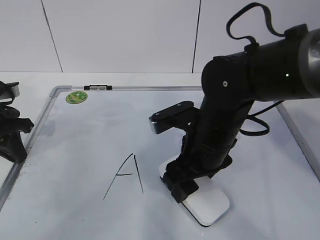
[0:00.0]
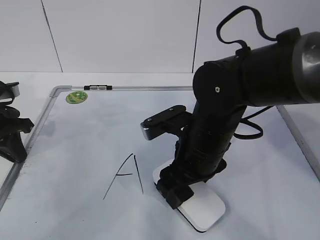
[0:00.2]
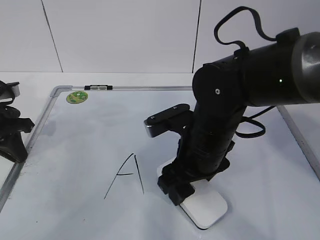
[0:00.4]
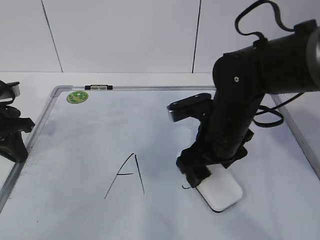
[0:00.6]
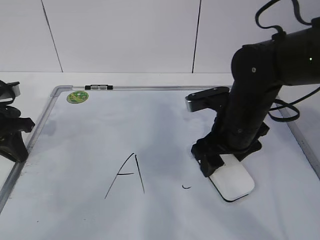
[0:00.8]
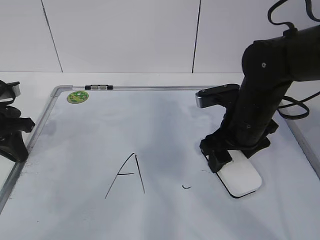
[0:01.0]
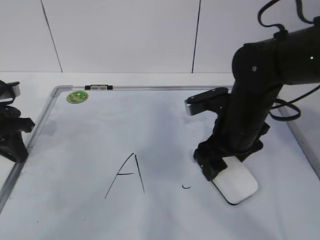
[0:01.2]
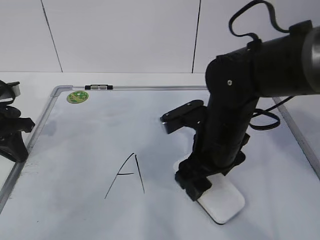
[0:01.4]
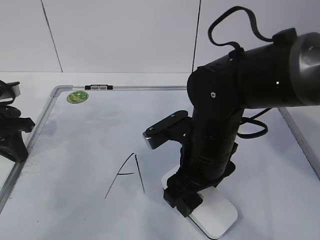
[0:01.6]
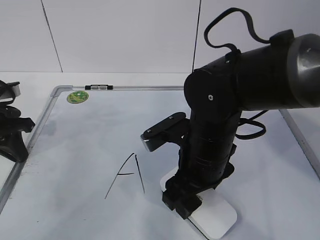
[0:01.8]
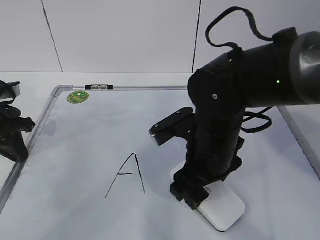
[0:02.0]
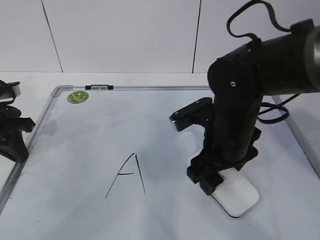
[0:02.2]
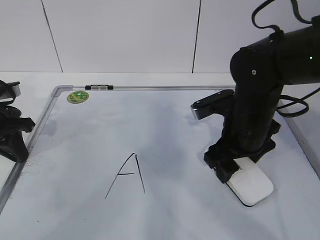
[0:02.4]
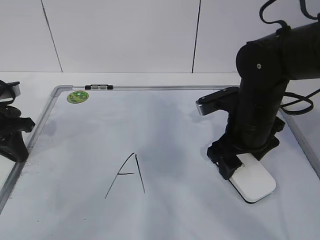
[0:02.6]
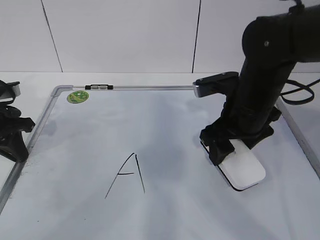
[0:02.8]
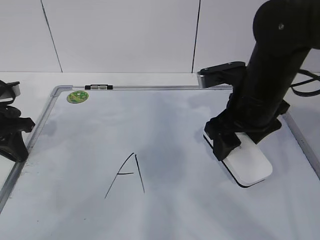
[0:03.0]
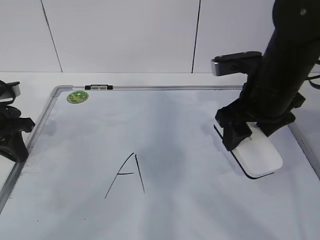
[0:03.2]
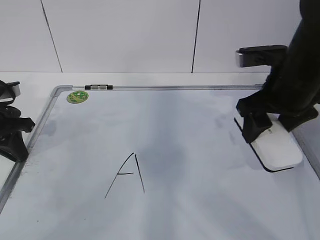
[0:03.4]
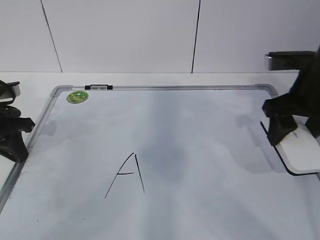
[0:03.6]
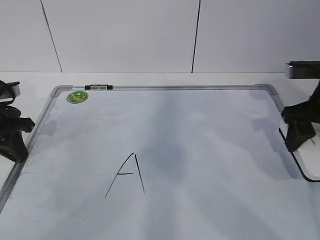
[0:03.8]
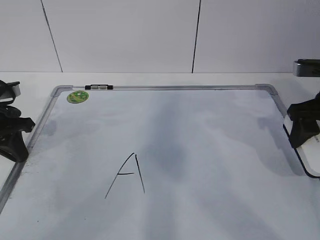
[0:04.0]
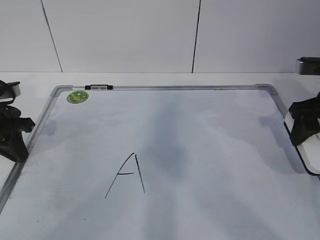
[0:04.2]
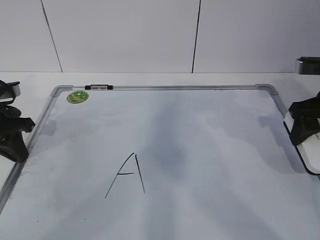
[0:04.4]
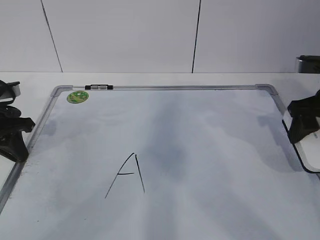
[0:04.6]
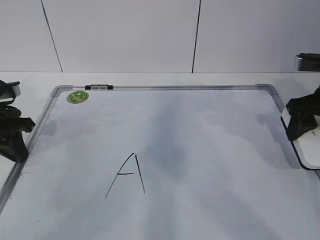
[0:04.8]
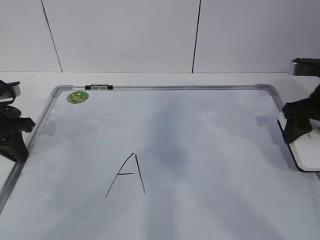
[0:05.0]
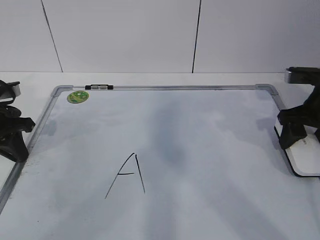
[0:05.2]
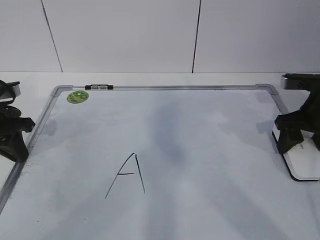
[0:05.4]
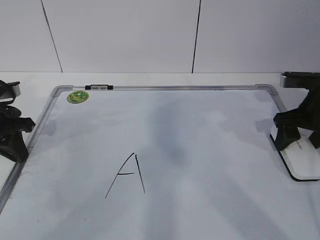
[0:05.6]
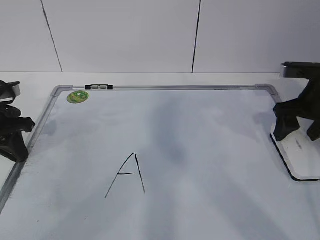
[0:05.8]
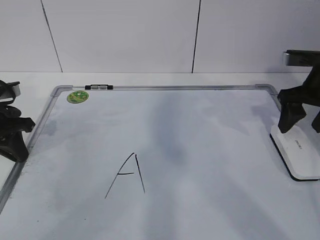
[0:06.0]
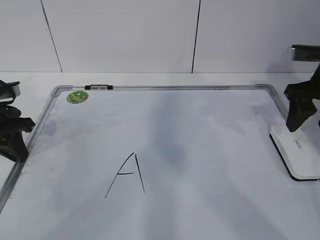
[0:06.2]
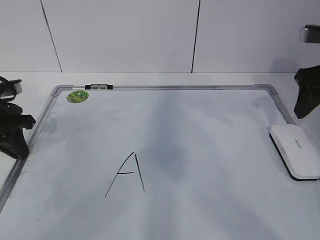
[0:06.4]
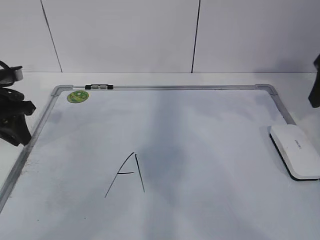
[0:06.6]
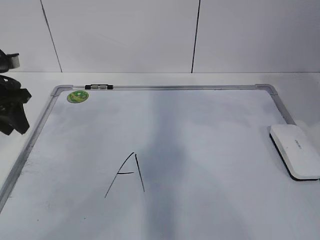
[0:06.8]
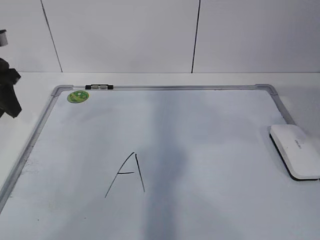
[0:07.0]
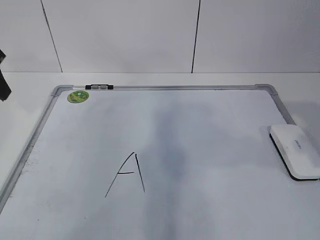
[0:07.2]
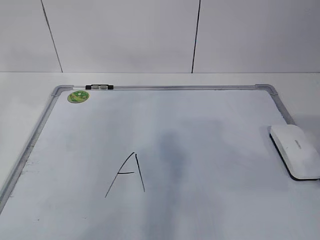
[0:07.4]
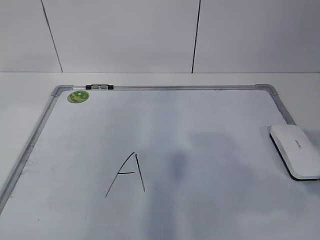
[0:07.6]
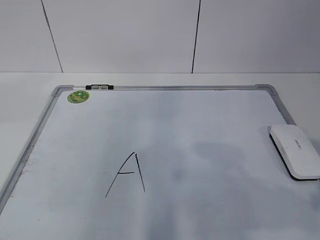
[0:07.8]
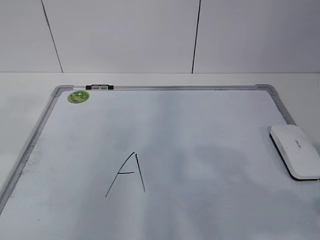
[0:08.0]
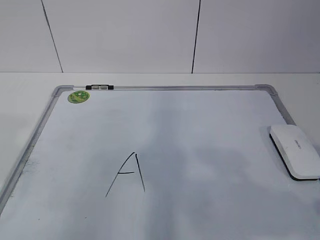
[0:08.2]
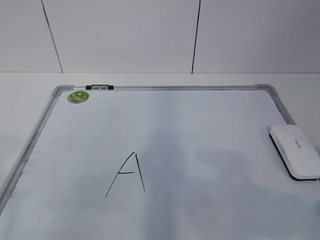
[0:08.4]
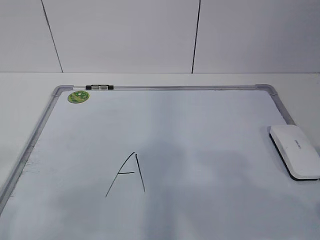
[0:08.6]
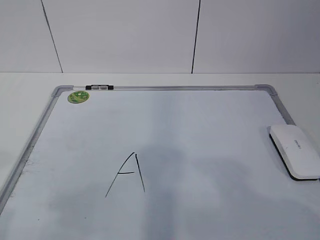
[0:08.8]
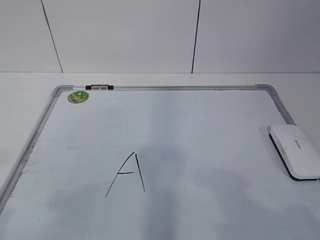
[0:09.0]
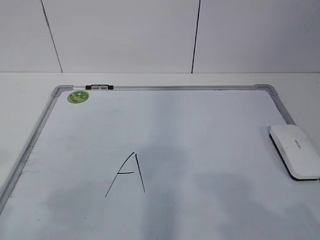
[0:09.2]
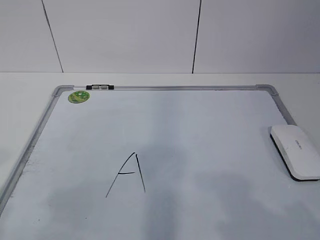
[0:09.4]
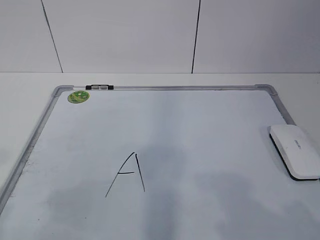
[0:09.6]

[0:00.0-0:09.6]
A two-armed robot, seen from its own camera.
Task of the whole recording: pick up the eraser on the blackboard and erase the letter "a".
Step, 0.0 to 1.6 s: Put down the eraser with your right hand.
0.0 to 1.6 s: The right gripper reaches about 5 cm to the right, then returns.
1.6 to 3.2 s: The right gripper shifts roughly 10 cm to the right and upward.
3.2 to 4.8 s: The right gripper shifts approximately 15 cm to the right.
4.8 to 6.4 s: The grippers stay close to where they were, moving slightly.
6.4 to 8.0 s: The left gripper moves backward and upward, some 30 cm, and opens, while the right gripper heads backward, covering some 25 cm.

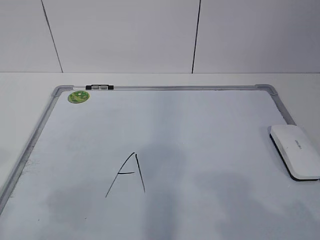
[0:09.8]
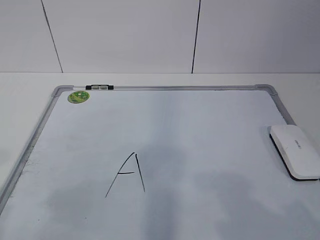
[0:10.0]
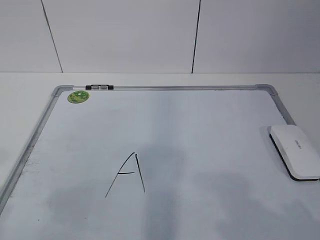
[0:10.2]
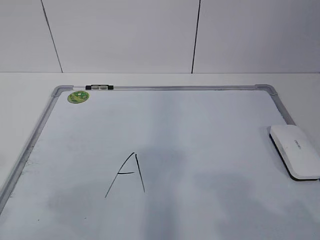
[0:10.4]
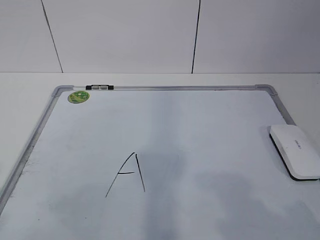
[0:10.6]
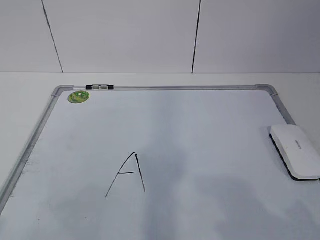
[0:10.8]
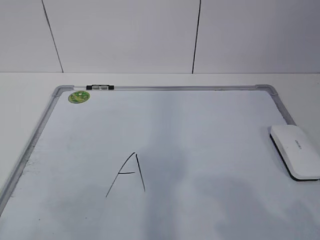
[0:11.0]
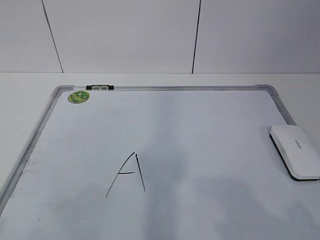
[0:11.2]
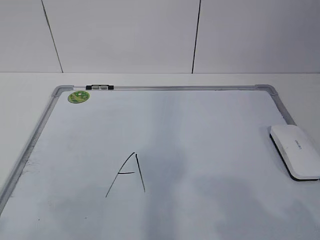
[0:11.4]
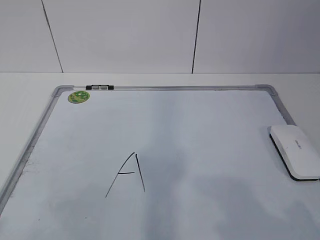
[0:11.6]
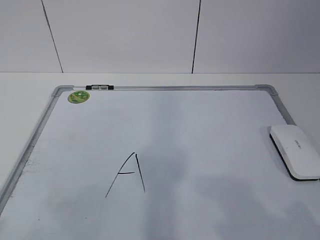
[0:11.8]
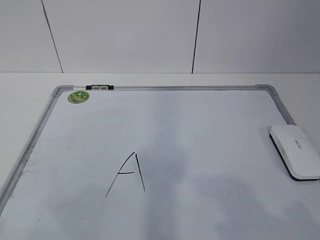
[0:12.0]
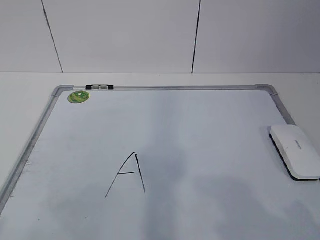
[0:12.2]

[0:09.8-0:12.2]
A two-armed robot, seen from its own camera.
Task of the whole recording: pick up the eraser on the blackboard and erase the letter "a".
11.0 to 12.2 s: Neither gripper changes place.

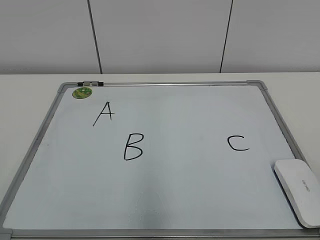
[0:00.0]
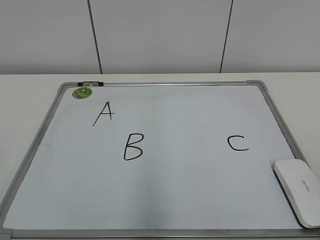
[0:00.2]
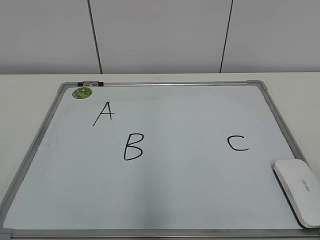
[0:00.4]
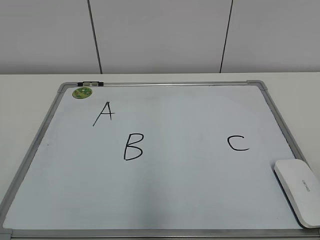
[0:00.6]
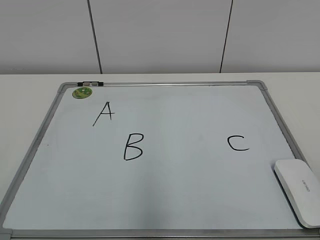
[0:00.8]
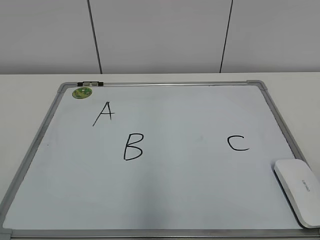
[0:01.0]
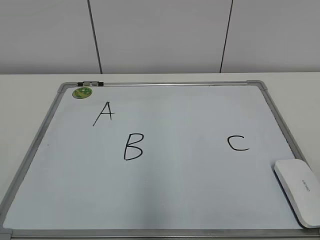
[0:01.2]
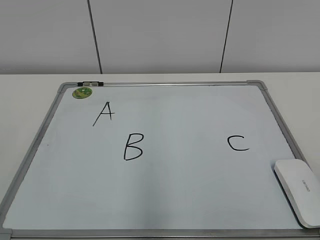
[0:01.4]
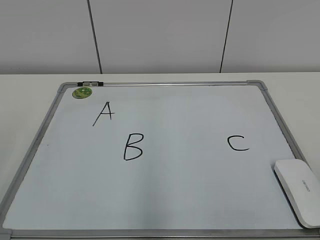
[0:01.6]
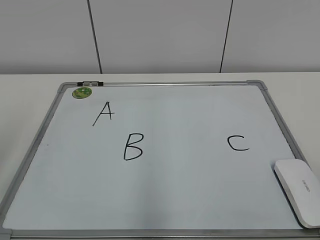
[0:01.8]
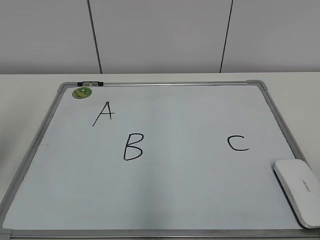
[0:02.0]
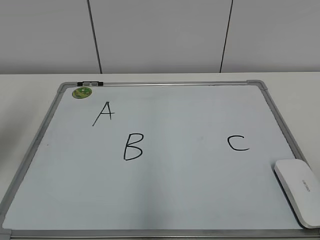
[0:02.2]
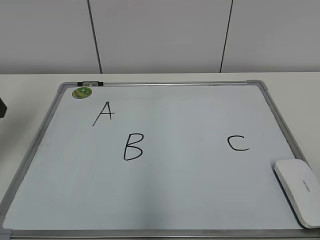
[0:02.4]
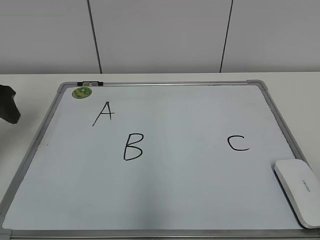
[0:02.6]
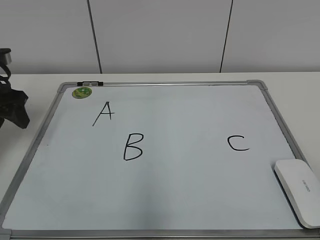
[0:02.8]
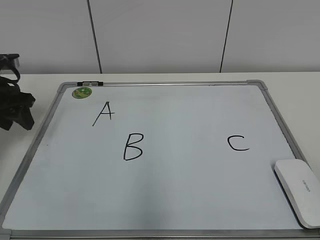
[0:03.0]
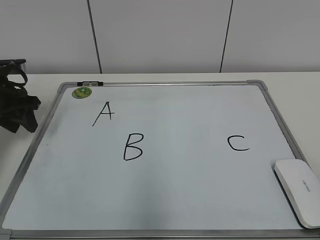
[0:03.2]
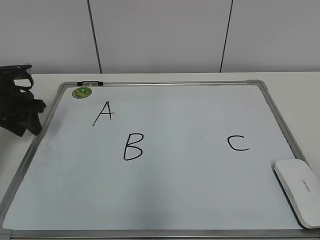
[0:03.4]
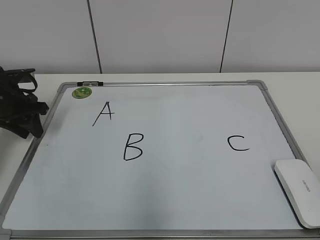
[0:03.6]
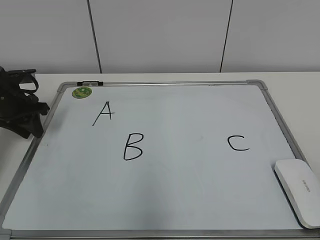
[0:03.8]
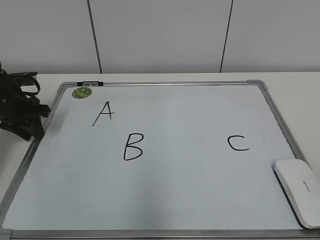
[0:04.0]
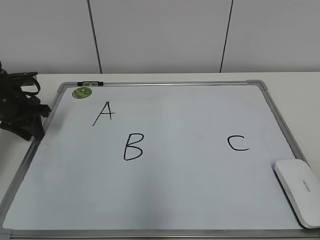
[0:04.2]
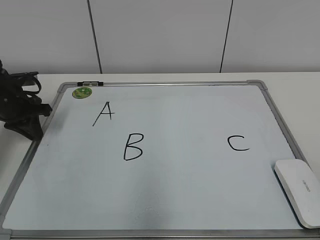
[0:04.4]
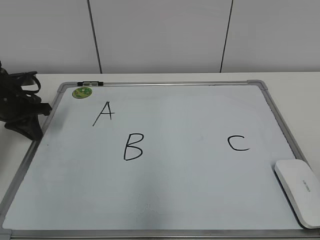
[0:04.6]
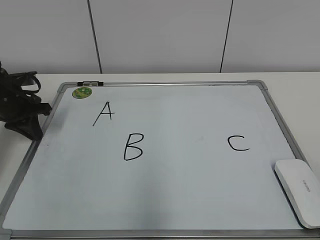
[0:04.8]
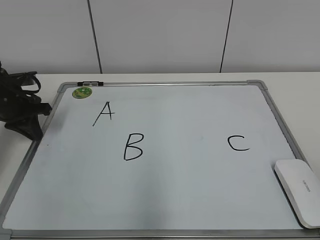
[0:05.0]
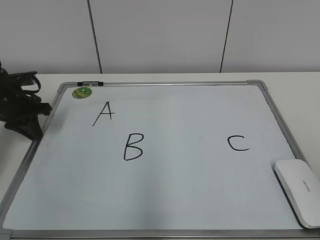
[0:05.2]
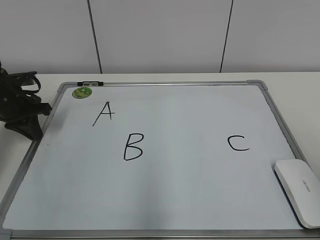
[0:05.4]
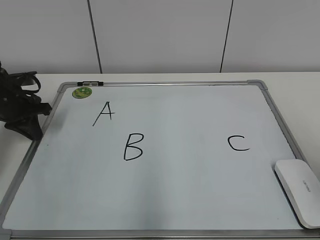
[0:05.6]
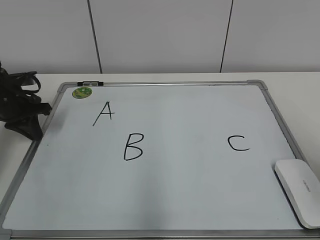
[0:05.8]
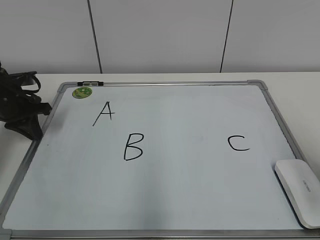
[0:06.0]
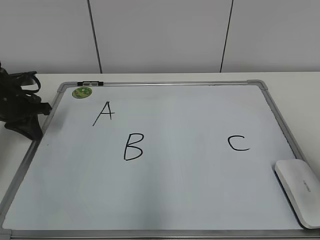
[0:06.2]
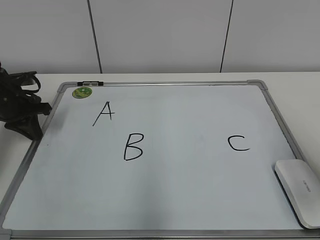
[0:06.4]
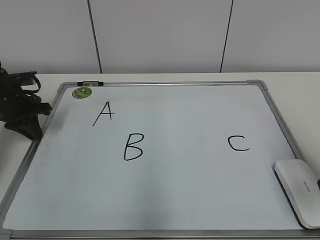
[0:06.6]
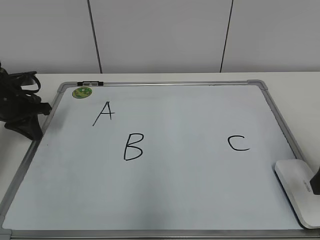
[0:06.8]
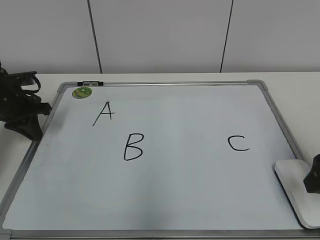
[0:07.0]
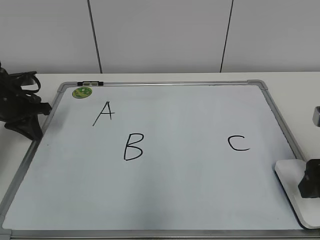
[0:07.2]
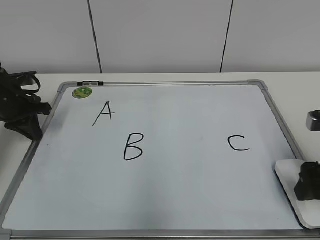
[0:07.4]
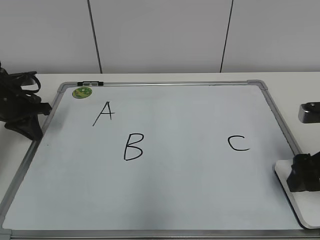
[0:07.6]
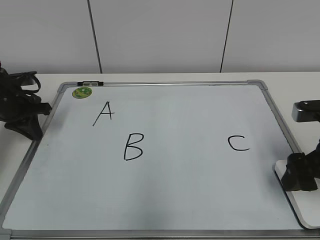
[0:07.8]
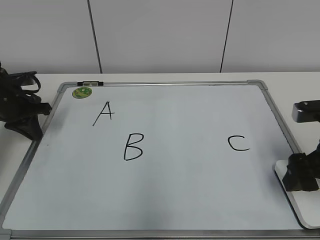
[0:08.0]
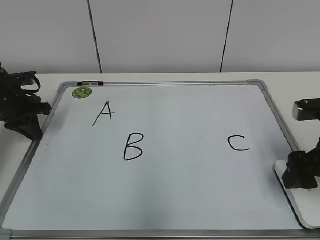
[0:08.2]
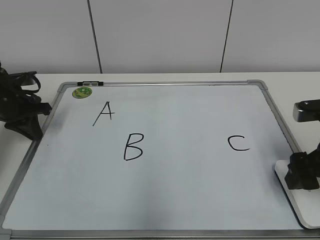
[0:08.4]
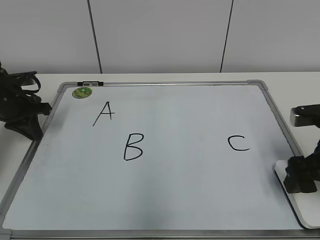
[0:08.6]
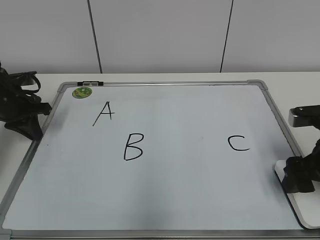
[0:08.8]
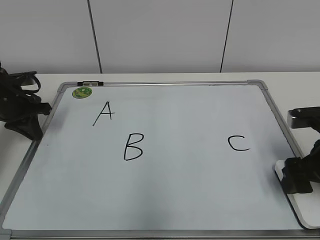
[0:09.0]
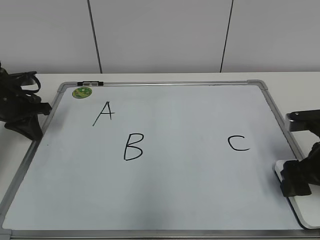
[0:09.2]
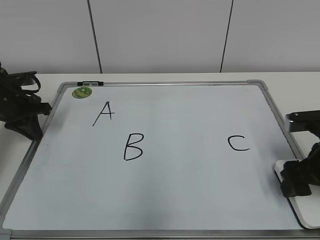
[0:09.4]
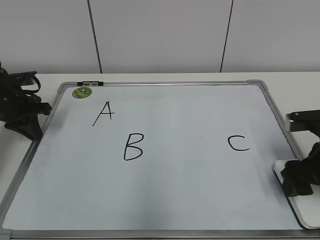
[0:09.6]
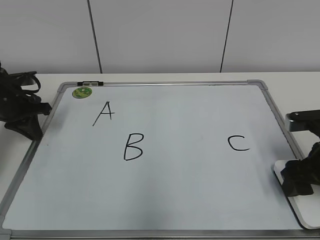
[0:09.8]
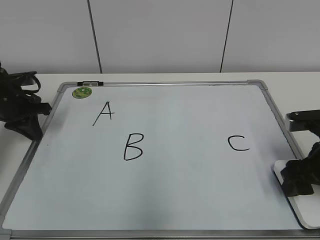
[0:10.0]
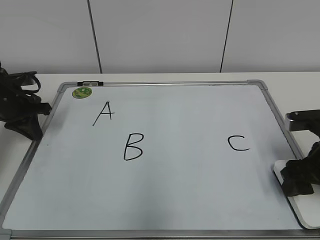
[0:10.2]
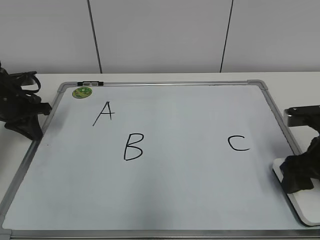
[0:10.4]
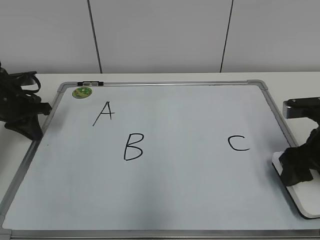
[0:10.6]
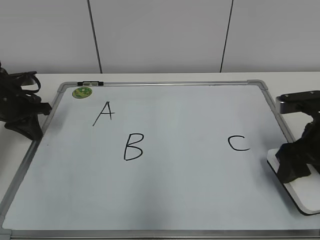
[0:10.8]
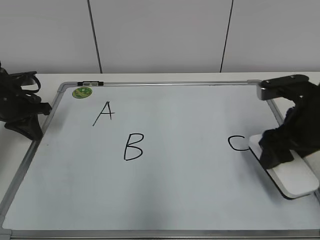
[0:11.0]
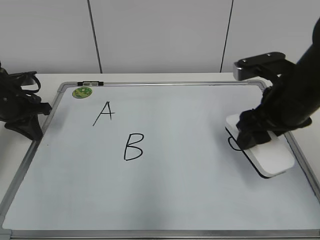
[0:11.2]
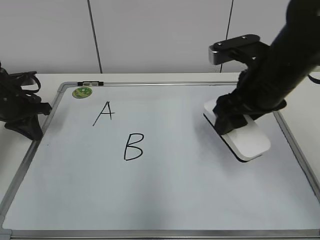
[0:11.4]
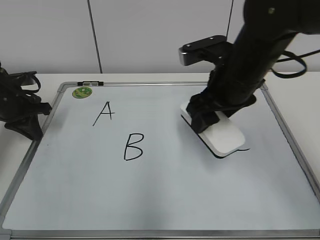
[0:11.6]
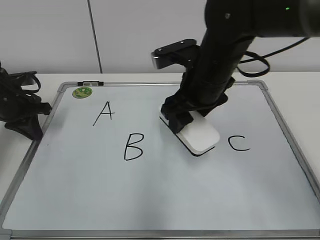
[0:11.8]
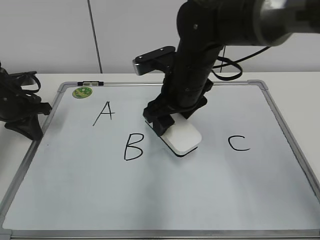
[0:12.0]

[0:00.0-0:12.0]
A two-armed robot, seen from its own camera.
Task of the whole recording: pick up the eraser on the blackboard and erase the letter "B".
Step, 0.0 to 4.4 s: Hold the drawing board steady with your left hand.
Step, 4.6 to 10.0 s: Grab the eraser with your right hand.
1.6 to 3.0 s: The left gripper shifts some 30 cm forward.
3.0 to 4.4 s: The left gripper moves downward, roughly 5 cm, and closes.
4.4 to 6.0 s: The right gripper heads forward, covering some 15 cm.
6.0 to 7.6 s: The right gripper travels forward and downward by some 10 cm, and opens its fingers.
7.6 to 9.0 s: The grippers move only a little.
9.0 to 10.4 s: The right gripper closes its fingers.
10.4 to 12.0 s: The right gripper shifts about 25 cm to the left and forward.
